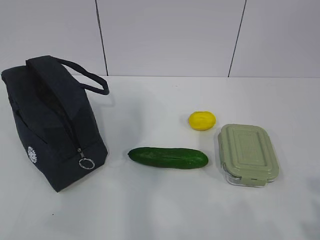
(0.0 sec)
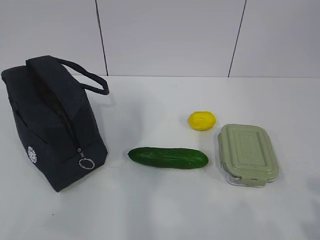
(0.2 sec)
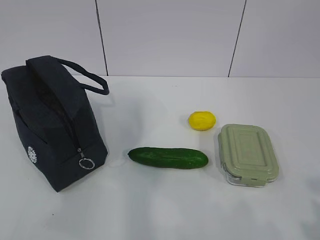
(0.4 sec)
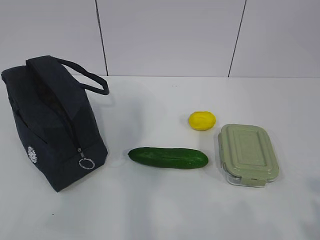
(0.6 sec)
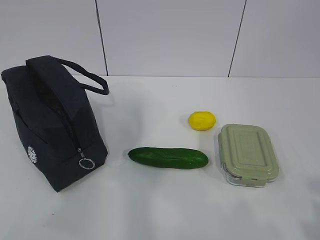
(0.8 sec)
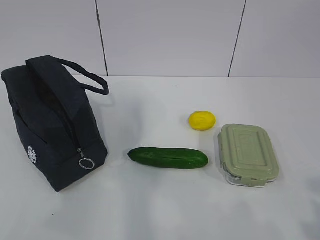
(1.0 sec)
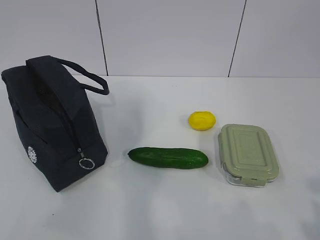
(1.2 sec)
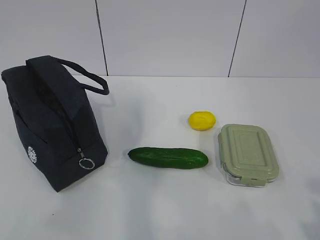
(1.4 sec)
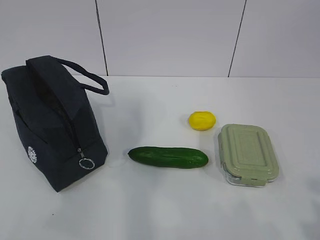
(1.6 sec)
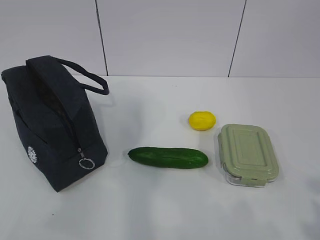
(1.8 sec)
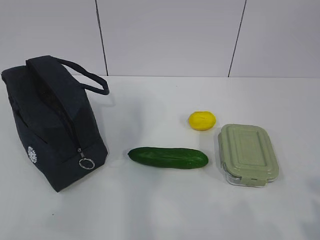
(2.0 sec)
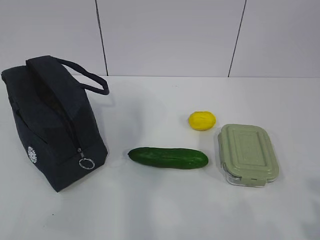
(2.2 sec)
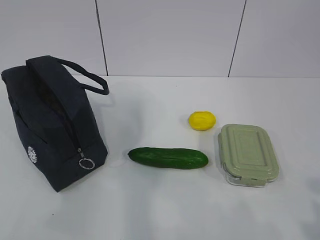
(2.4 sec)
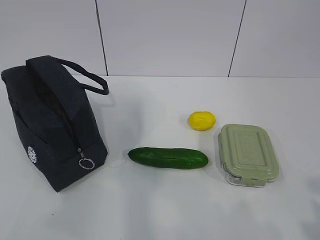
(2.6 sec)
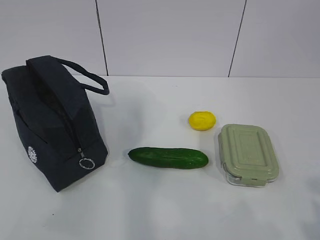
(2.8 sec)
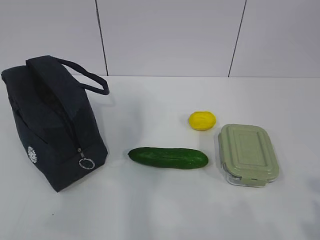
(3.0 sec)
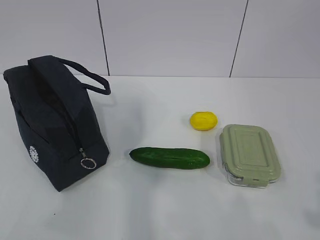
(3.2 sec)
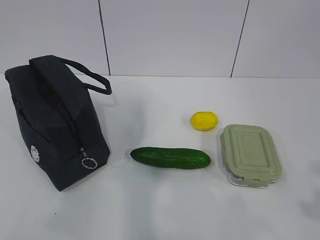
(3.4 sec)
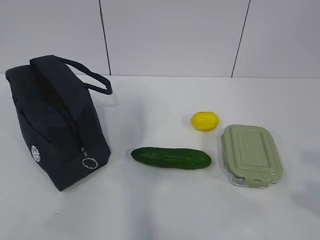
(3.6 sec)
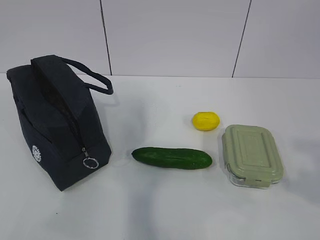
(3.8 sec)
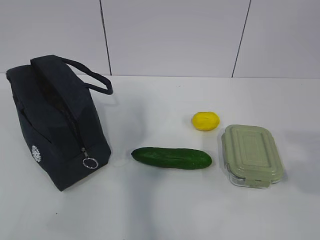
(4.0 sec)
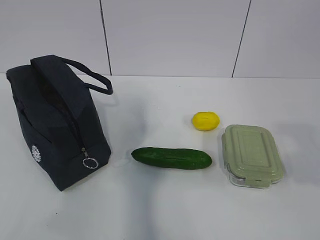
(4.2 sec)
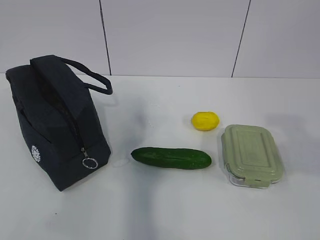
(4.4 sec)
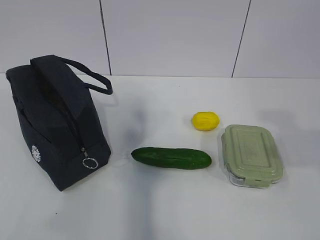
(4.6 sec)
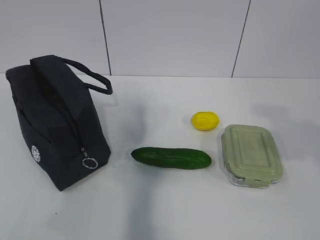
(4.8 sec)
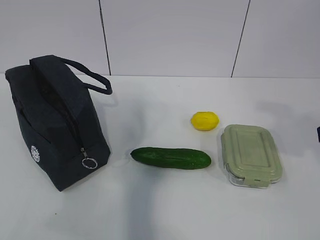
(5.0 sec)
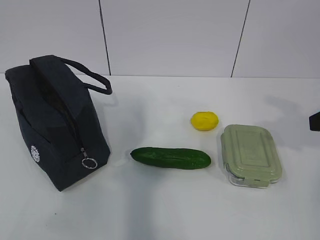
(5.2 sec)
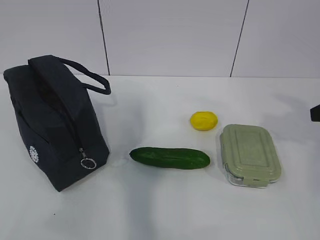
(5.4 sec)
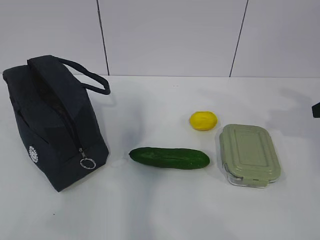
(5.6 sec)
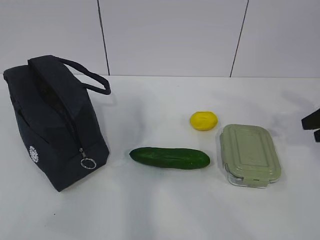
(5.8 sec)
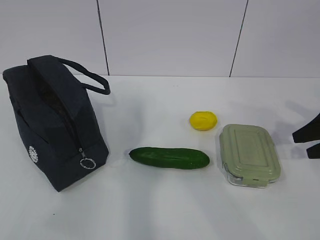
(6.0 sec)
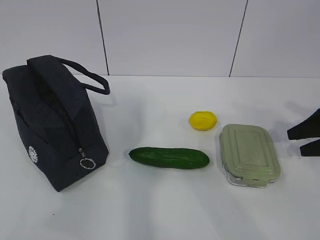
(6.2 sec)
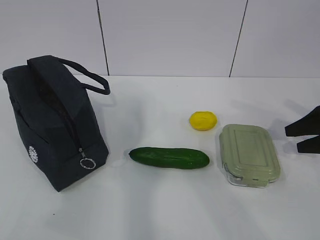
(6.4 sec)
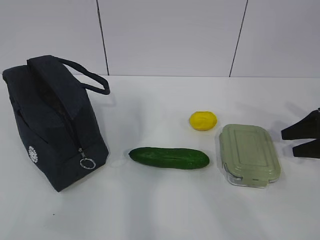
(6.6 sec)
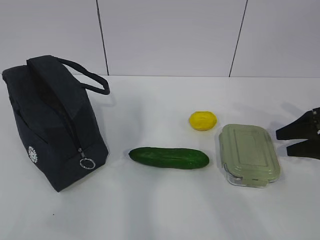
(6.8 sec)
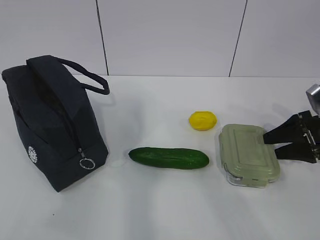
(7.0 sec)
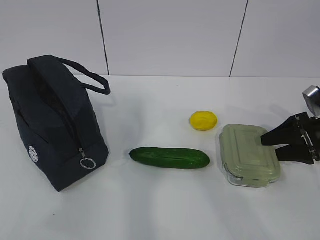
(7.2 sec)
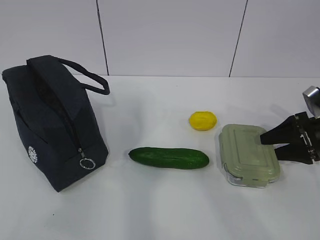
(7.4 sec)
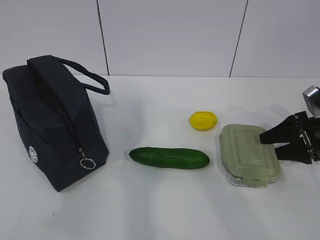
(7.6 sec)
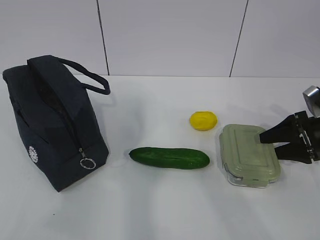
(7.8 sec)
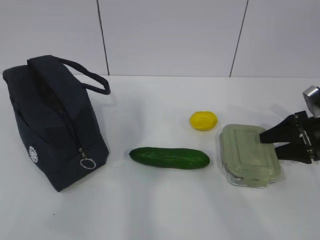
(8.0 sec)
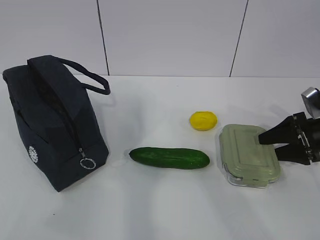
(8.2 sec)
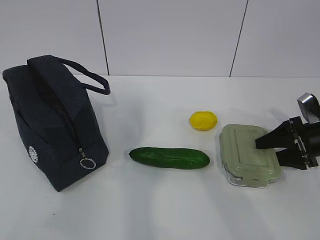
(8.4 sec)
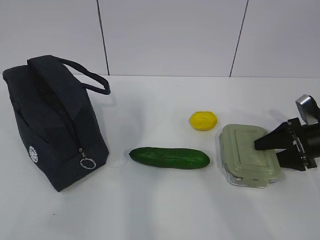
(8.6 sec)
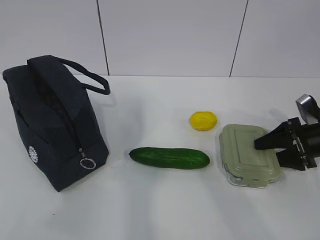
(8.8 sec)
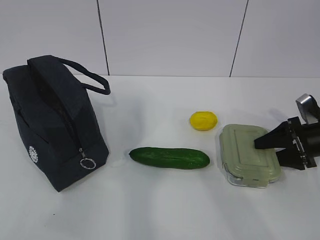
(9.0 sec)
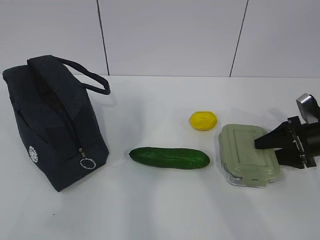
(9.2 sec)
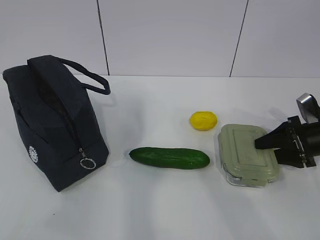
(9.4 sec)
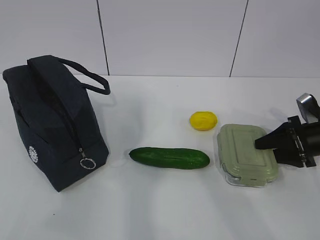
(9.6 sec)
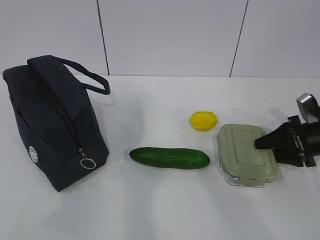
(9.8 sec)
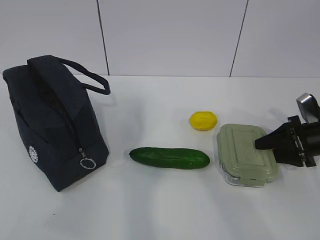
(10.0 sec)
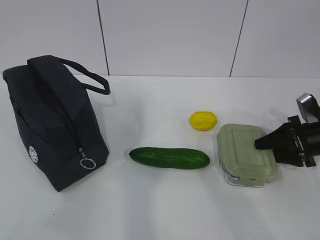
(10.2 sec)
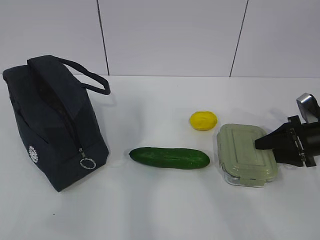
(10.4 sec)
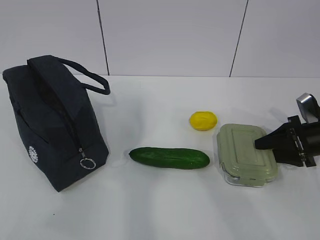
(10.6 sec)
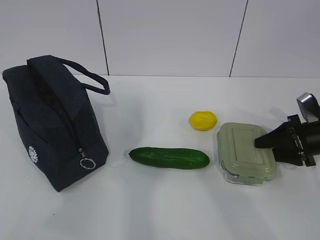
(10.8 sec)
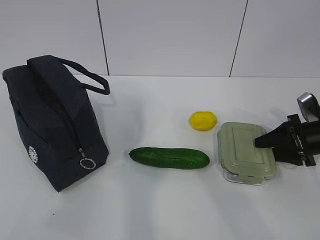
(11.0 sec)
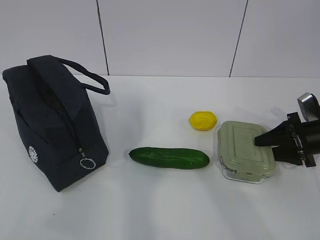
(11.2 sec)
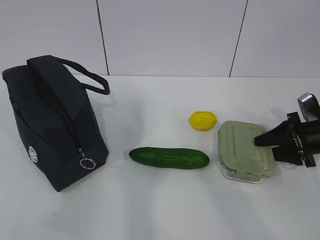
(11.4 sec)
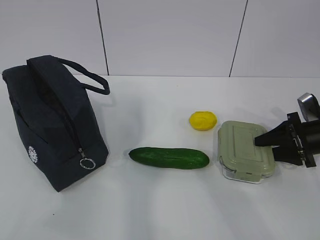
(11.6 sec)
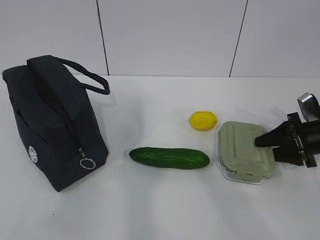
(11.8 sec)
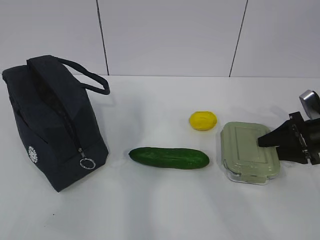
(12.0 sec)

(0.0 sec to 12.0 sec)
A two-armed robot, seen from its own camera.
Step, 0.0 sec - 8.6 sec: Grab the lunch box with your right hand.
1.6 sec - 3.0 sec: The two grippers keep their place.
3.0 sec - 4.4 sec: The right gripper travels forward and upward by approximately 15 cm.
4.4 sec - 6.0 sec: The right gripper moves forward, downward and to the right, some 30 cm.
6.0 sec - 7.6 sec: The right gripper is displaced downward by roughly 5 cm.
7.6 sec - 9.0 sec: There are only small adjustments of the grippers.
9.0 sec - 10.4 sec: The two grippers keep their place.
10.4 sec - 12.0 sec: The grippers move only a little.

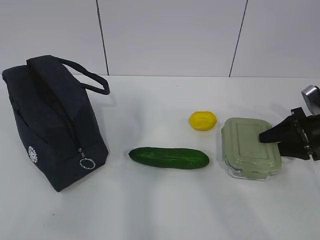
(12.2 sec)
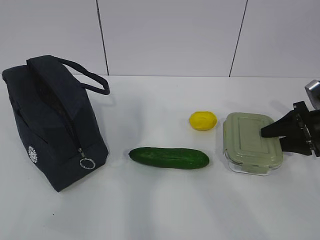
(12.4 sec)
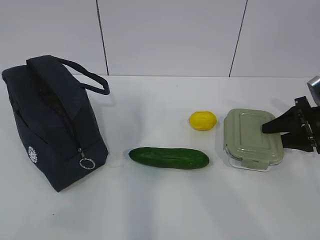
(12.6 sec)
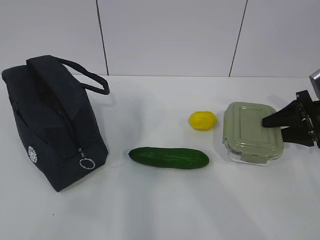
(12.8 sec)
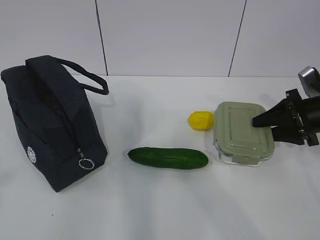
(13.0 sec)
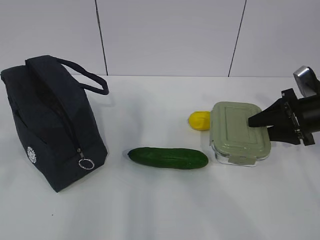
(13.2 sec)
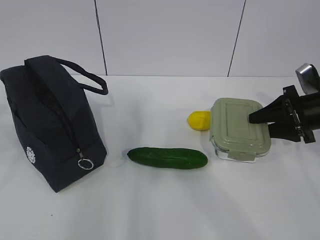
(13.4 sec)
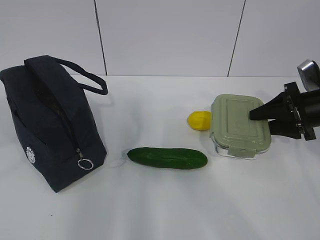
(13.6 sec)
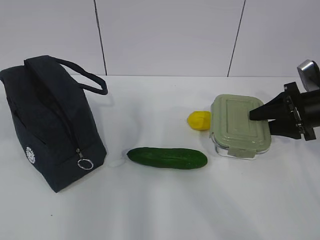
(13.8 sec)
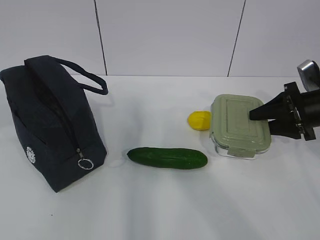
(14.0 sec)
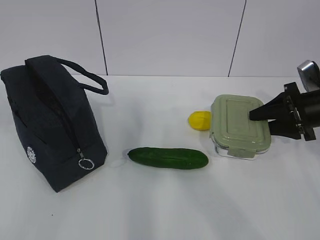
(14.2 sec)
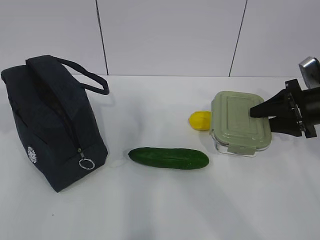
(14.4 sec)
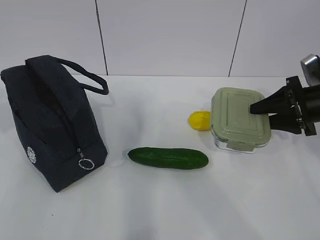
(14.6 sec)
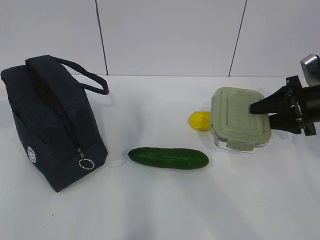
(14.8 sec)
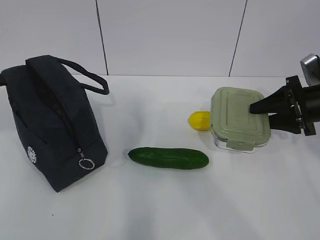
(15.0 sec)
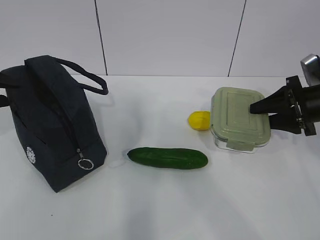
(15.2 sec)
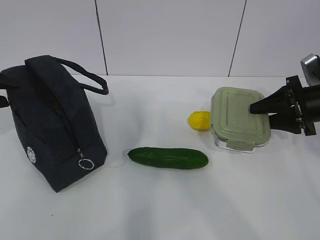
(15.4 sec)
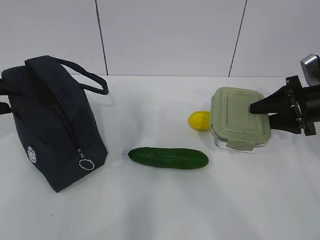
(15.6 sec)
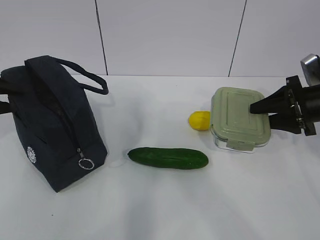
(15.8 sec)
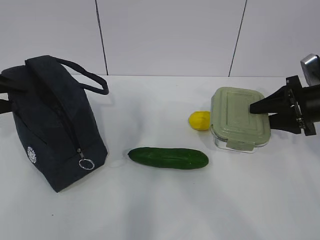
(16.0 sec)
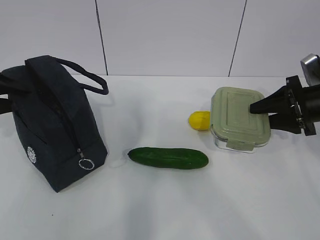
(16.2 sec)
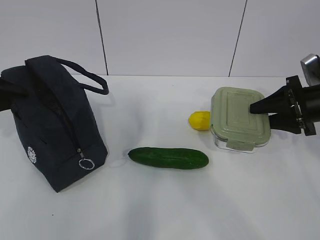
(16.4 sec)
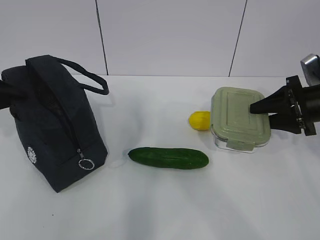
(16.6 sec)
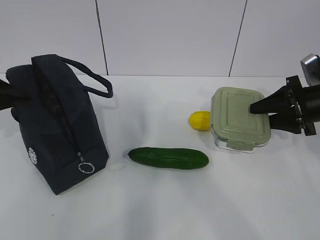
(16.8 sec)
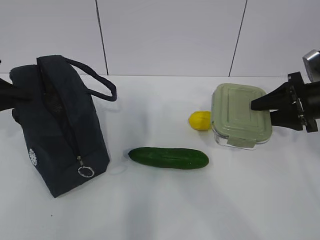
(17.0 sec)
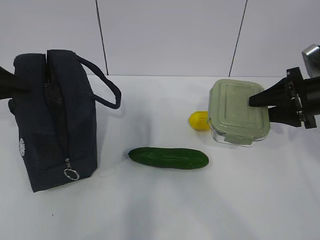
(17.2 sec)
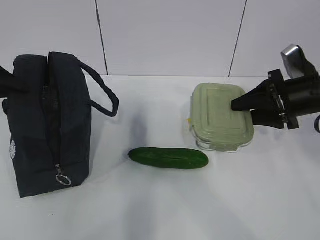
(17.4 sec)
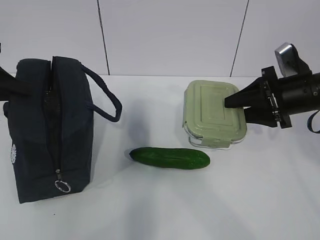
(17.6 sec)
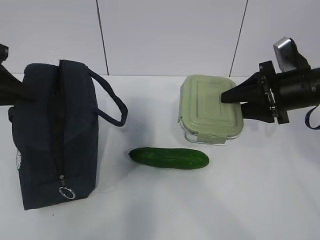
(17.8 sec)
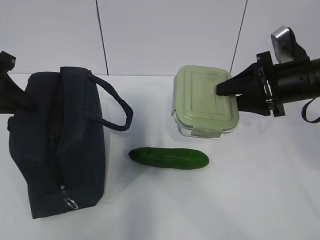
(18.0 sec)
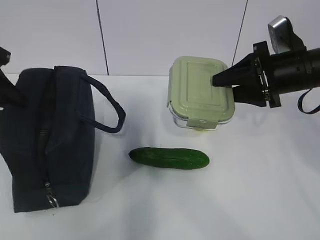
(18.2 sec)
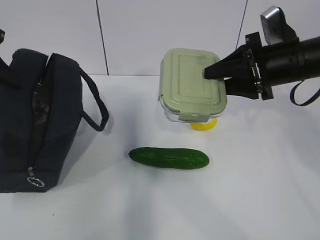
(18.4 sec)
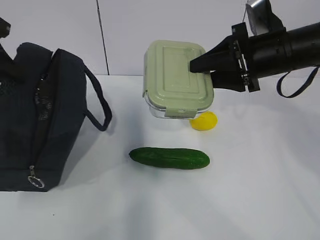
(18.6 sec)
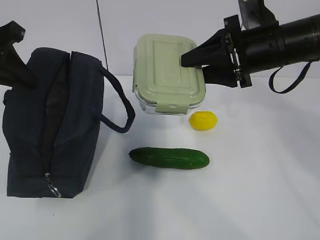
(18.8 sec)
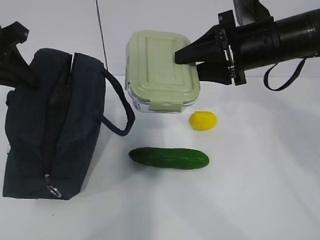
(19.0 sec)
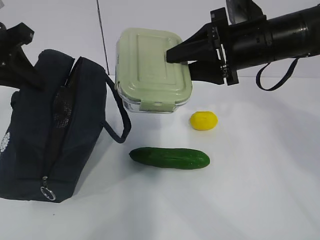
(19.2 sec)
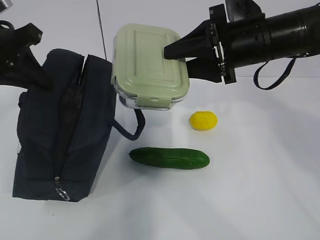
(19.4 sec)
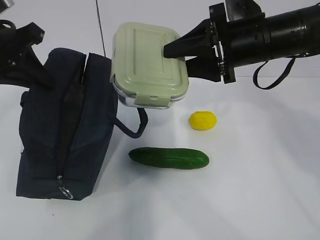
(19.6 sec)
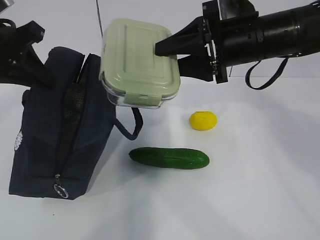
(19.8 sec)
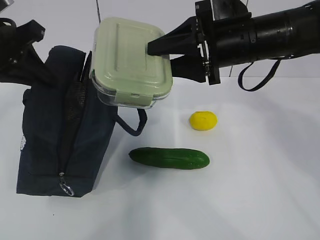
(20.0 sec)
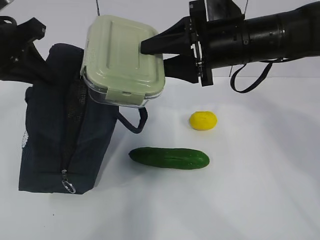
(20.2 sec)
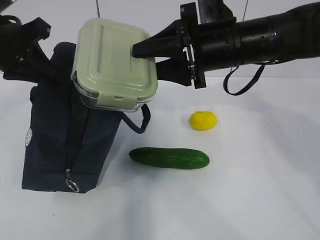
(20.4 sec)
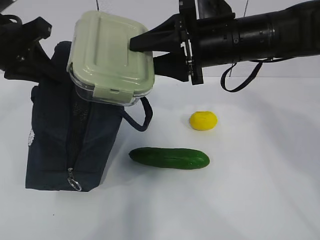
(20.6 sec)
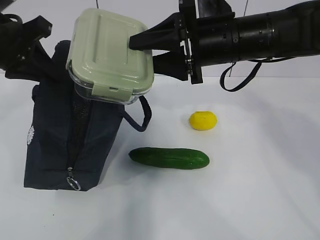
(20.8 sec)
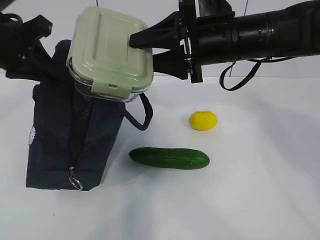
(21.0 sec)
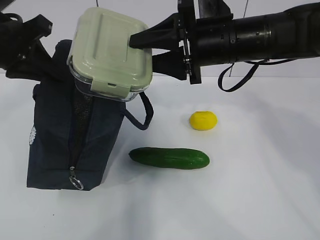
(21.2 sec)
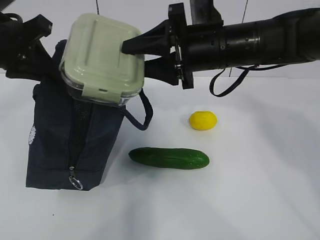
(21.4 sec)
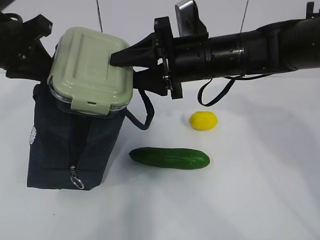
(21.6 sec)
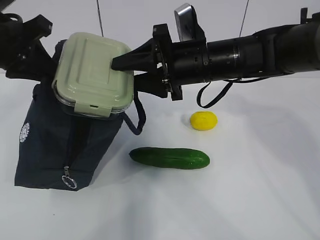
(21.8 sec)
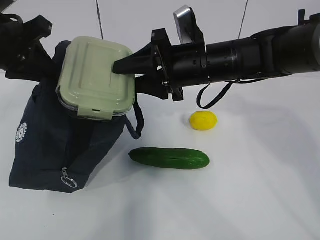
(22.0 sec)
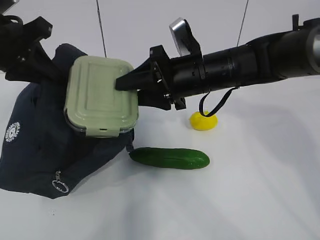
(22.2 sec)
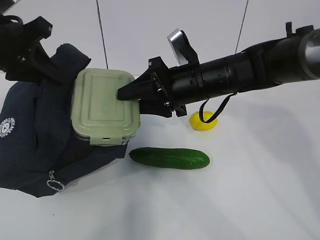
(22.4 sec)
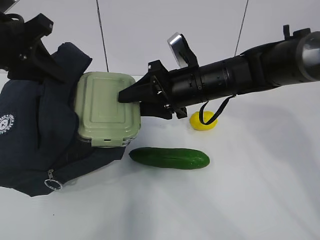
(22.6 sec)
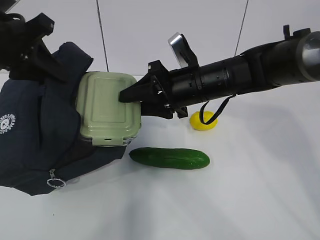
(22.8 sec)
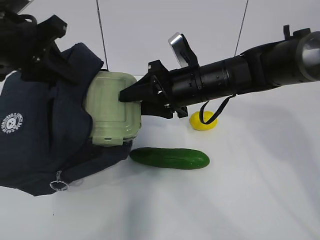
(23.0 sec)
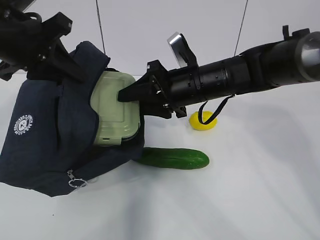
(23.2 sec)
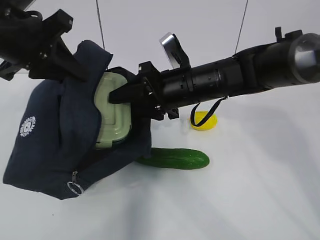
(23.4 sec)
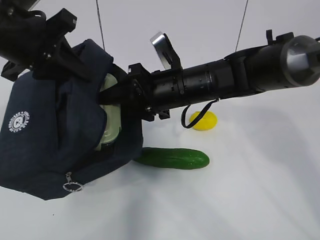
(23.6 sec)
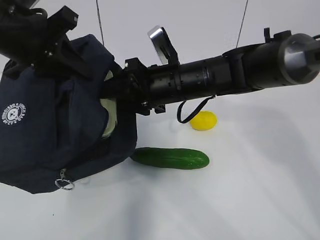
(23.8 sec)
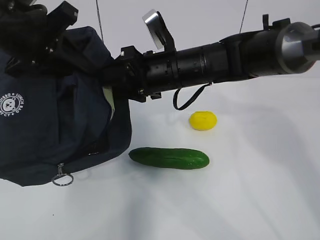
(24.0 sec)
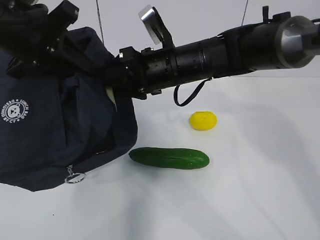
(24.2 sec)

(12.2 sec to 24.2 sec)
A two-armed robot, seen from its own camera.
Step, 12.2 sec - 17.8 sec: Grab the lunch bag with your left hand.
Step, 18.2 sec - 21.8 sec: Place it into the bag with your right hand.
12.2 sec - 13.8 sec: The right gripper heads upward, covering some 5 cm. The left gripper is displaced forward by approximately 20 cm.
15.2 sec - 16.6 sec: The left gripper closes.
16.6 sec - 18.2 sec: The right gripper moves to the left and upward, approximately 10 cm.
18.2 sec - 19.8 sec: The right gripper goes about 10 cm to the left and upward. The left gripper moves to the right, roughly 5 cm.
19.8 sec - 21.2 sec: There are only small adjustments of the grippers.
21.2 sec - 22.6 sec: The right gripper heads downward, covering roughly 10 cm.
22.6 sec - 24.2 sec: The right gripper ends up approximately 5 cm from where it was.
